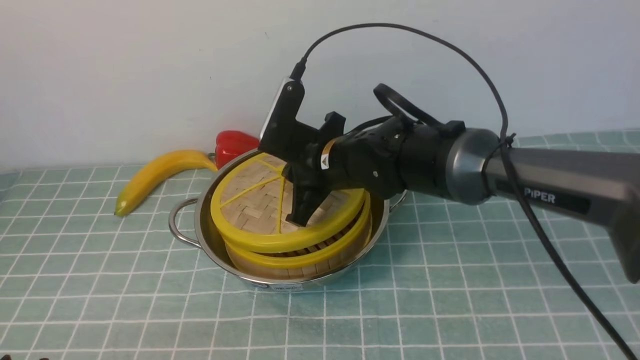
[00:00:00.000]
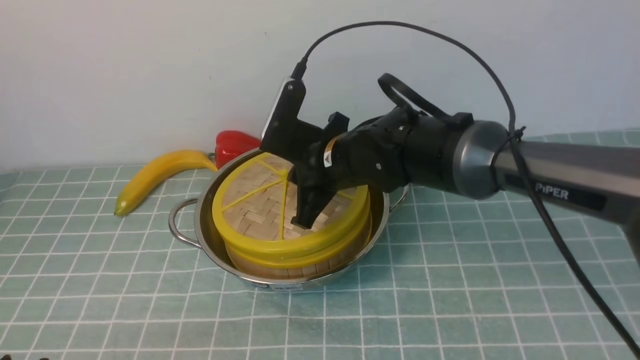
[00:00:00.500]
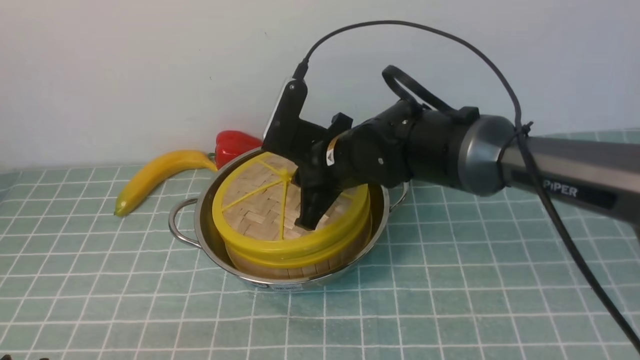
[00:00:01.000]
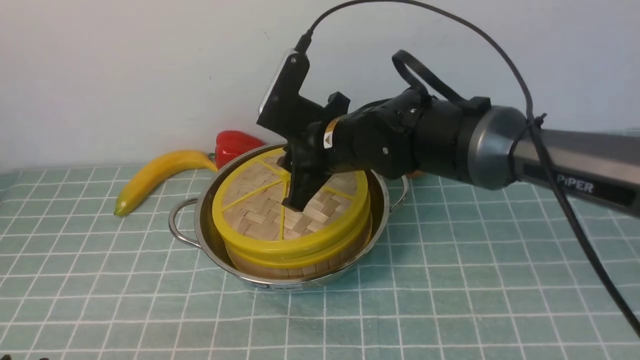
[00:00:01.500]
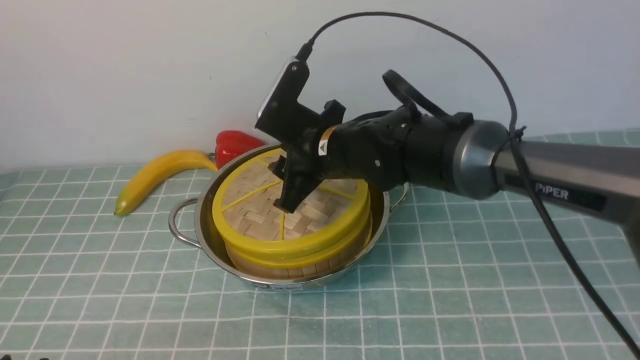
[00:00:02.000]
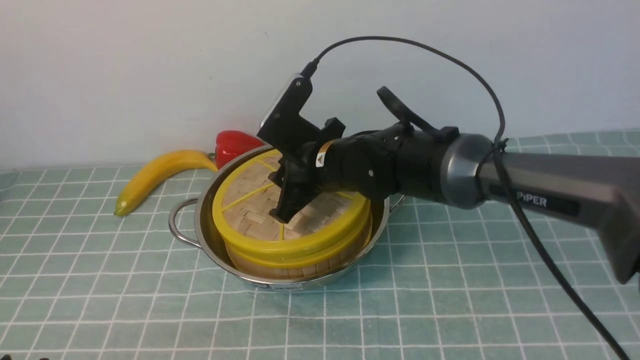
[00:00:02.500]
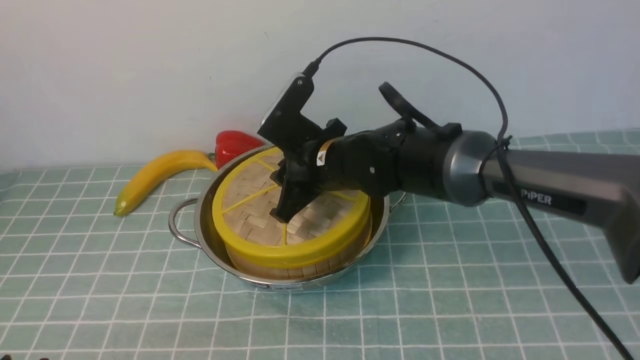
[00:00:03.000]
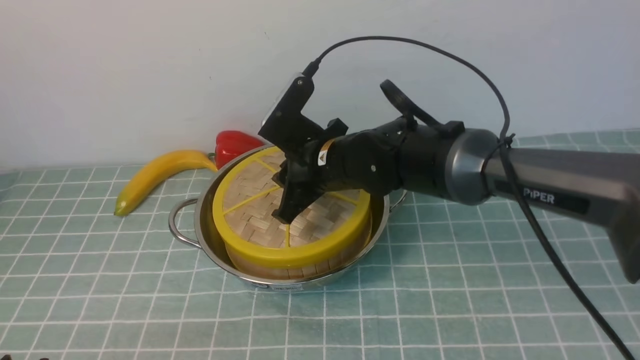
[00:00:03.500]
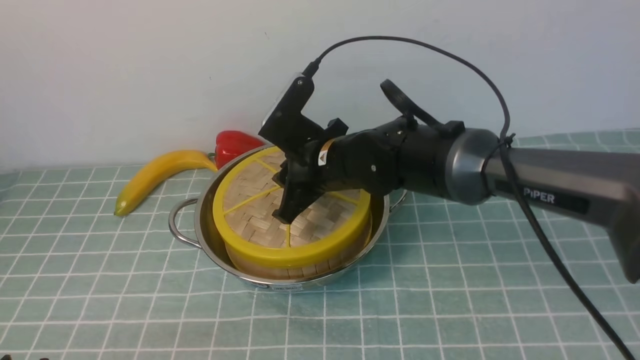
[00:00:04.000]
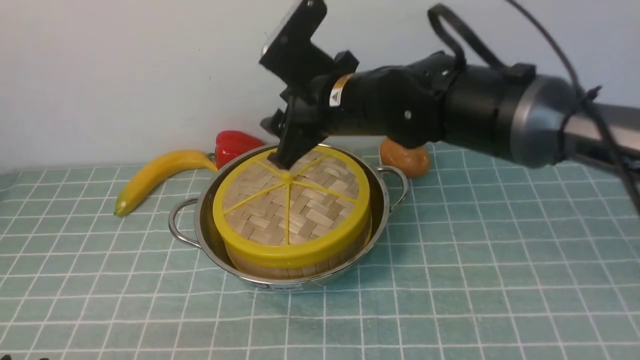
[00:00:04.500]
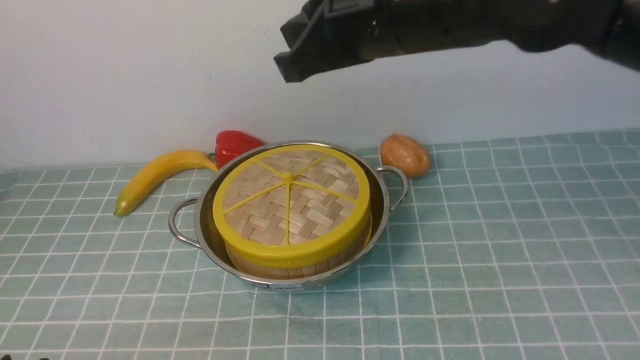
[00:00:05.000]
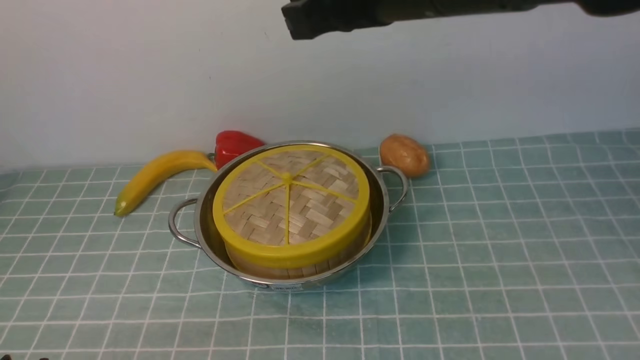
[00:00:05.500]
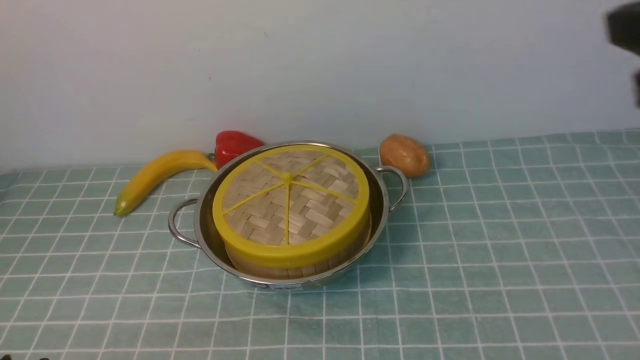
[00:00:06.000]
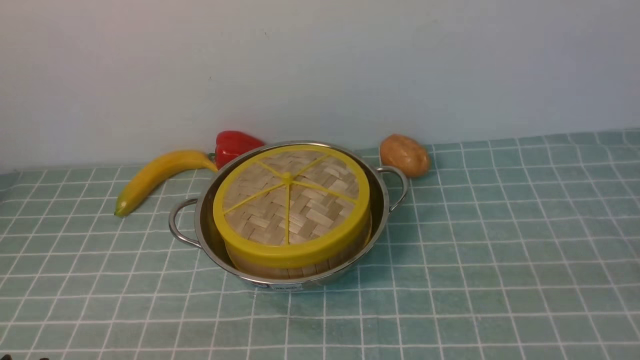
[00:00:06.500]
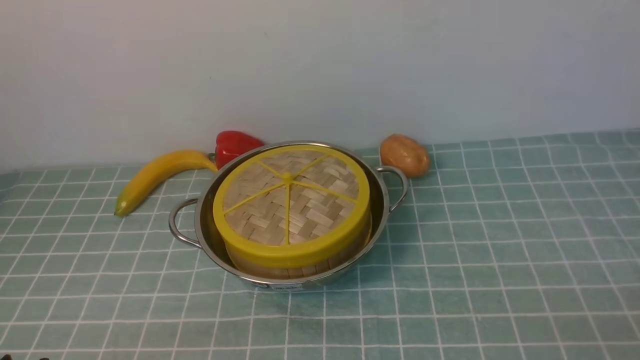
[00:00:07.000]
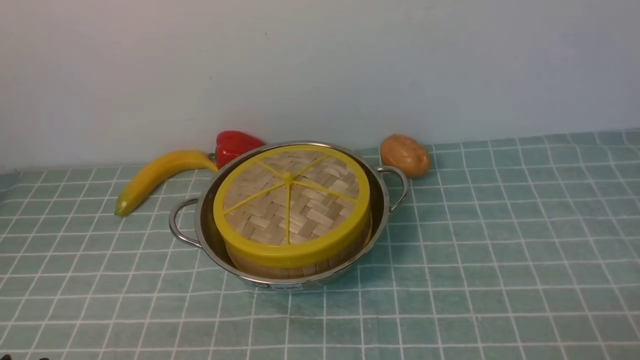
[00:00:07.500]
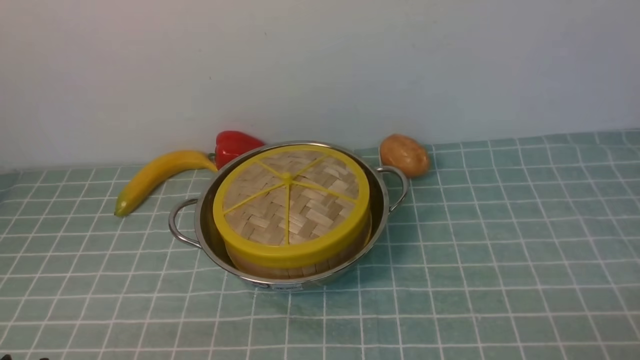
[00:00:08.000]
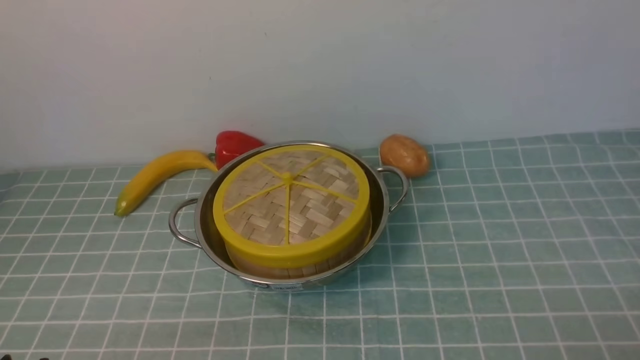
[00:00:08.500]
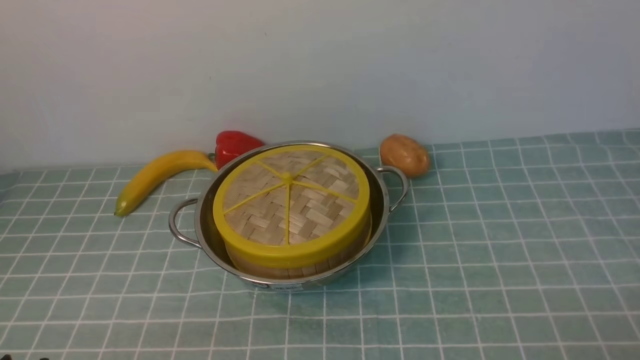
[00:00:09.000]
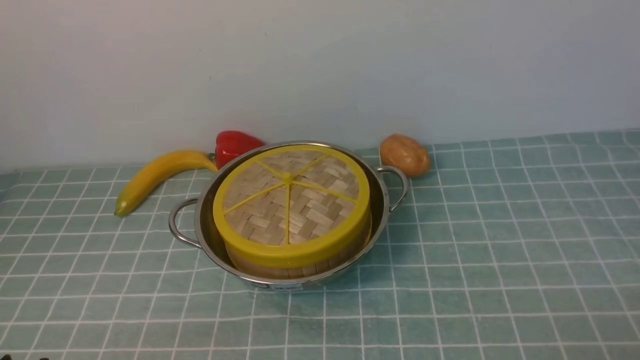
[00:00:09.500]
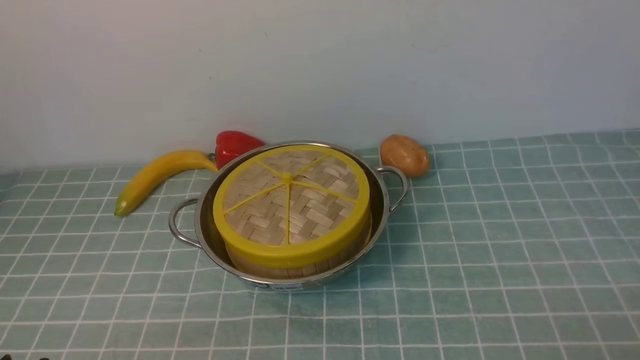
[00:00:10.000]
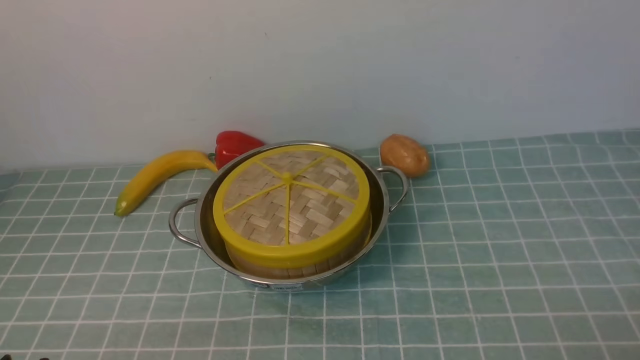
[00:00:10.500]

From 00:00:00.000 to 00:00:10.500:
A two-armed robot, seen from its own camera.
Task of the whole recording: place the steamer in the pot on the blue tablecloth, and put the lid on the steamer.
Step, from 00:00:00.000 to 00:00:04.500: use the right arm to place the steamer lid on the steamer.
From 00:00:00.000 to 00:00:02.000: The right gripper opens.
From 00:00:02.000 to 00:00:04.000: The grippers move only a little.
From 00:00:04.000 to 00:00:06.500: The right gripper goes about 40 cm to the right and backward, and closes.
From 00:00:08.500 to 00:00:10.500: Both grippers stay about where they are.
